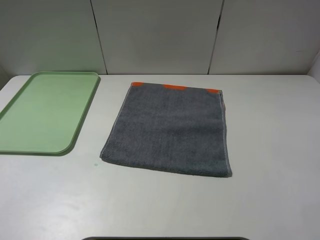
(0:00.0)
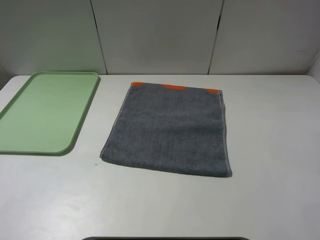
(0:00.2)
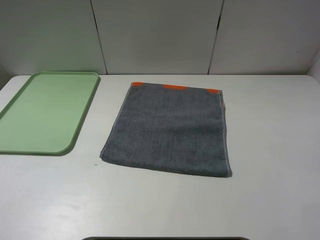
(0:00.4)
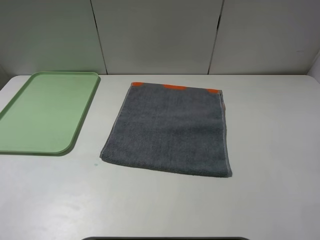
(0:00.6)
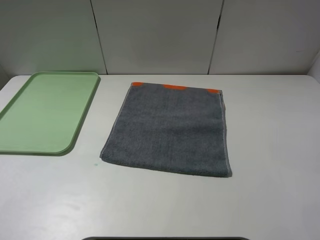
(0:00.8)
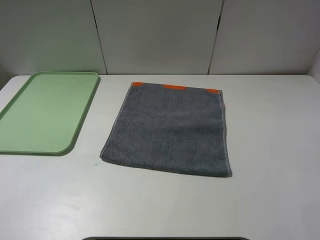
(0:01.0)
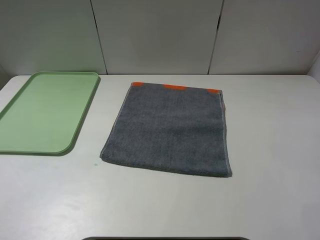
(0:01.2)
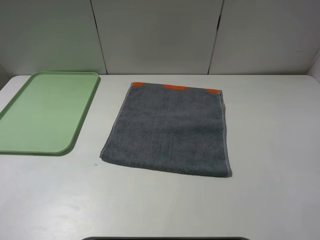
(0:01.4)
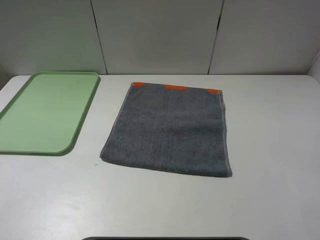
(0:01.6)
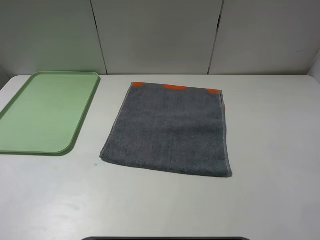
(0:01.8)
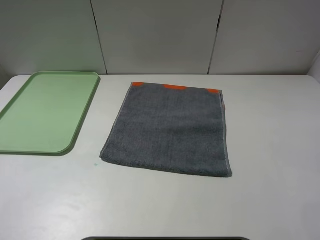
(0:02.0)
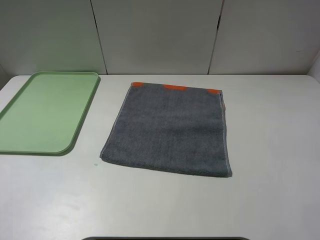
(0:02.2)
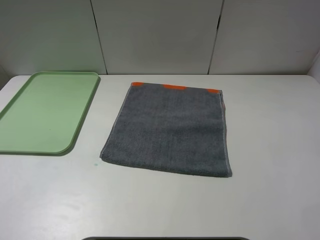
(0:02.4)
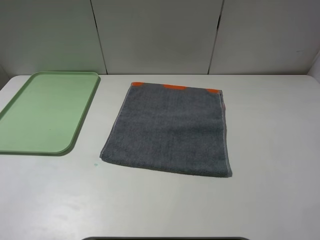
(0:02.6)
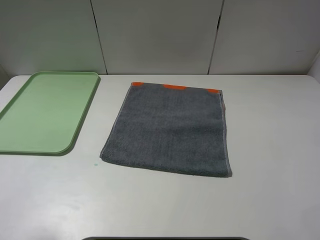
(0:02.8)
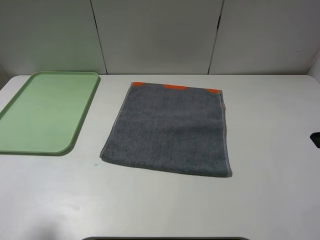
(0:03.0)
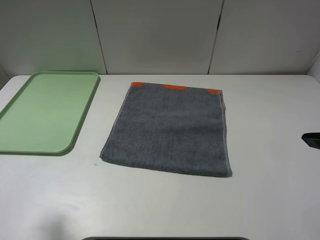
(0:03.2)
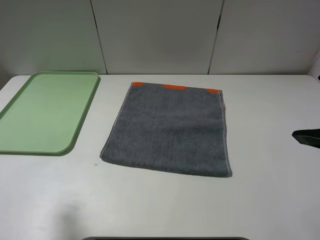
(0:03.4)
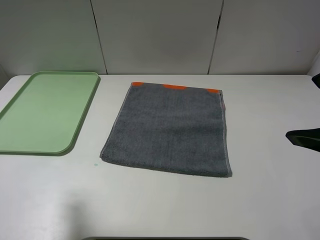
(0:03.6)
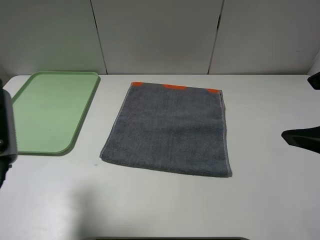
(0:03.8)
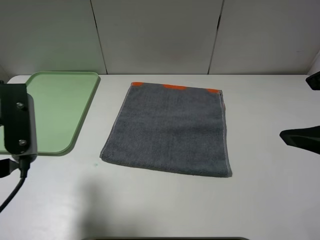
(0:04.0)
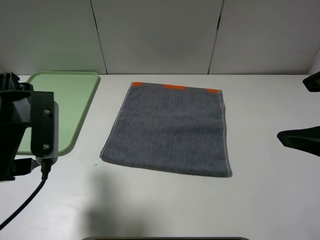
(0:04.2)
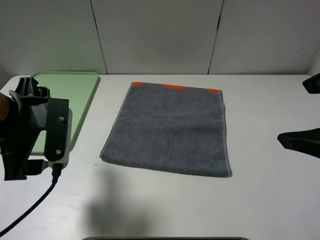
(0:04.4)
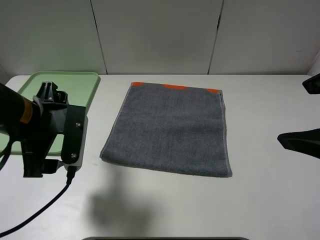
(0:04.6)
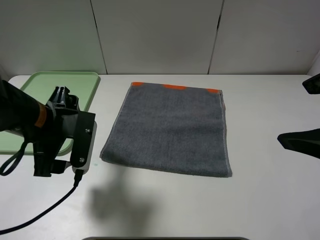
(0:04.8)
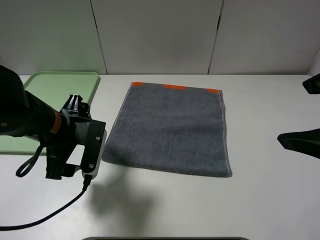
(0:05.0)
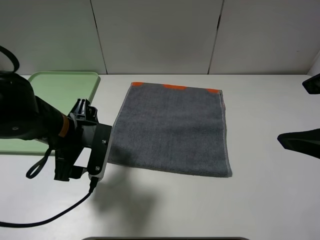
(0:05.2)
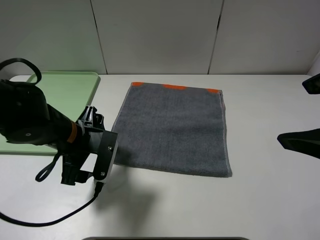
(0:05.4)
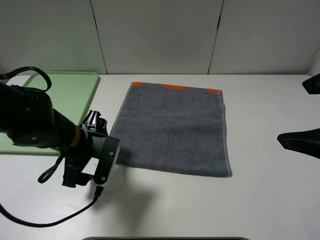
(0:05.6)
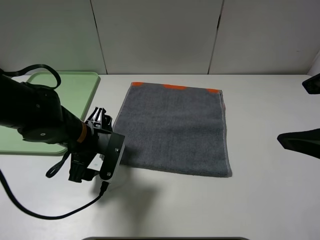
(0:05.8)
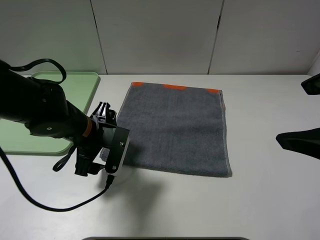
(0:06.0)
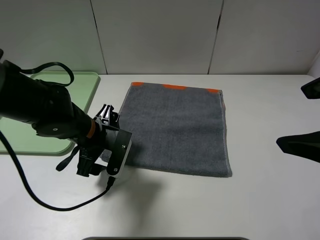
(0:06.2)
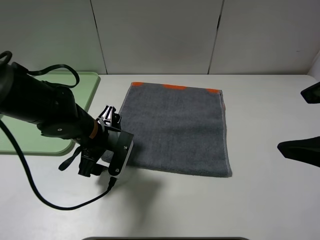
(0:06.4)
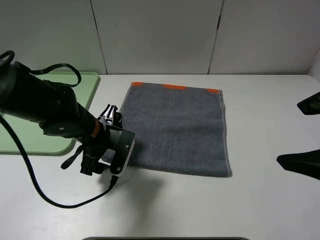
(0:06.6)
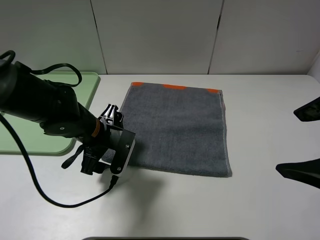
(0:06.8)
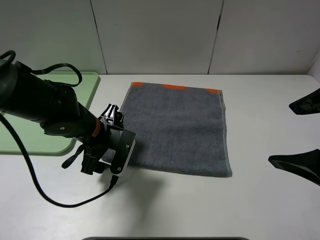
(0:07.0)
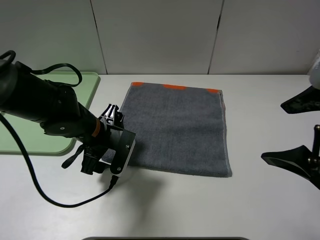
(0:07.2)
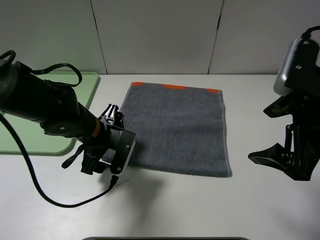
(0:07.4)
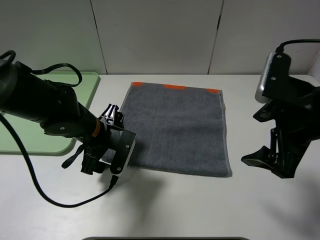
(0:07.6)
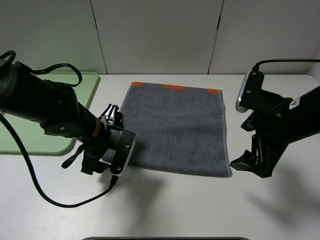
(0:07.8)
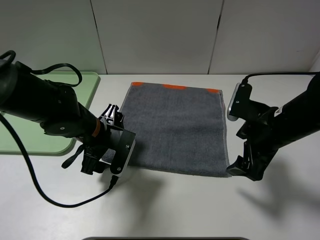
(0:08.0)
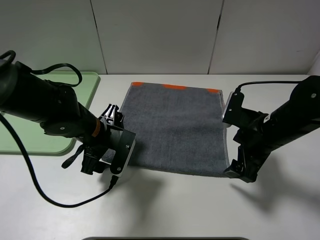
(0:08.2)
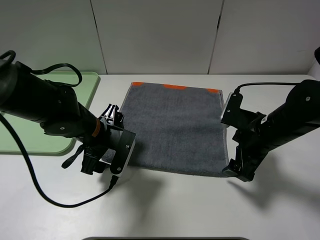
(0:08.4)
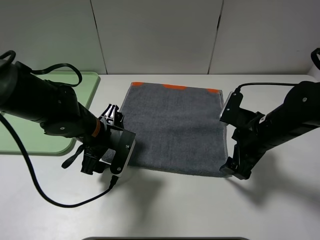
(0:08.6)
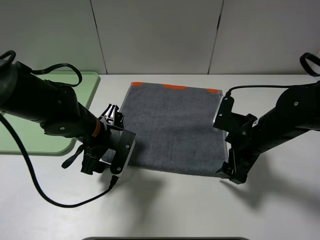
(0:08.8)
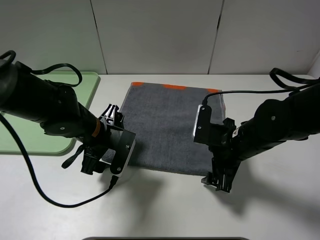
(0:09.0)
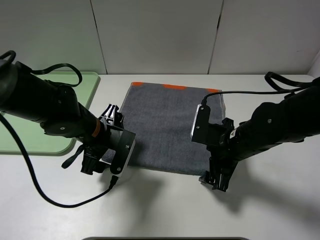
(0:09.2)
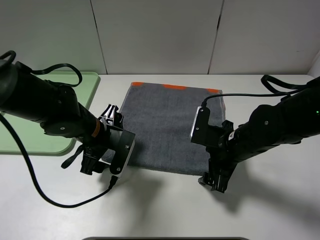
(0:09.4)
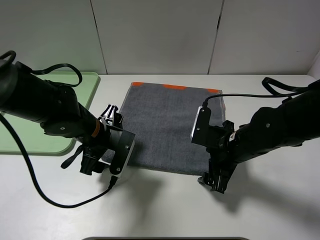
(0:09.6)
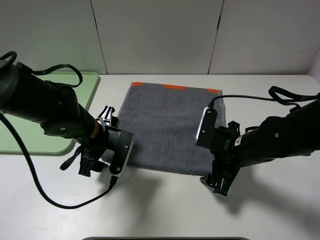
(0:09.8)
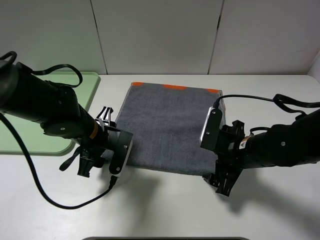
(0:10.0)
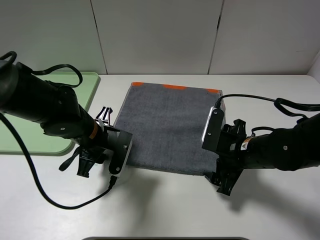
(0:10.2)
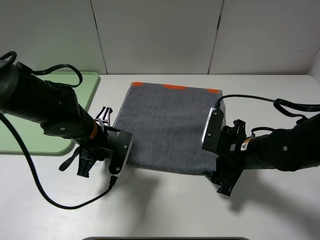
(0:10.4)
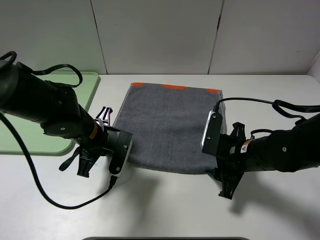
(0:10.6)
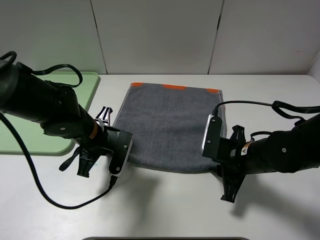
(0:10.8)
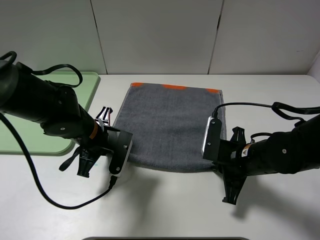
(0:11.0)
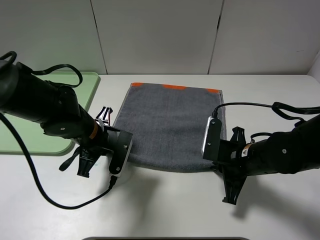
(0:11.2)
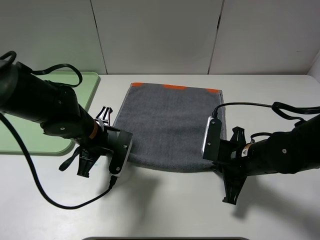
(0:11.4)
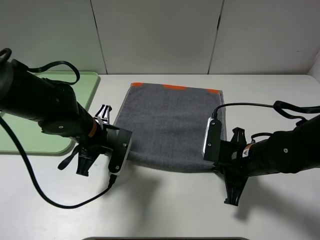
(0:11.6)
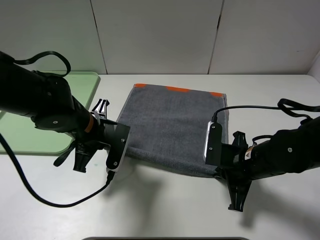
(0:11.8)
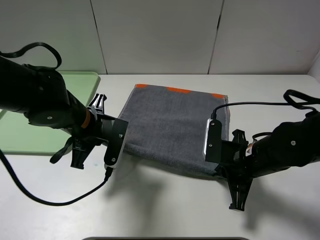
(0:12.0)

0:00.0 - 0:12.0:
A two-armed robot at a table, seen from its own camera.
0:00.0 - 0:01.6: Both grippers stay put.
0:01.6 - 0:03.0: The left gripper moves forward, about 10 cm.
0:03.0 - 0:04.4: The left gripper travels forward, to the right and downward by about 15 cm.
0:04.4 - 0:06.0: The left gripper travels downward, to the right and forward by about 15 cm.
0:06.0 - 0:07.6: The right gripper goes approximately 10 cm downward and forward.
0:07.6 - 0:09.0: The right gripper goes some 15 cm downward and to the left.
0:09.0 - 0:10.4: The left gripper closes up.
0:10.4 - 0:12.0: The right gripper closes up.

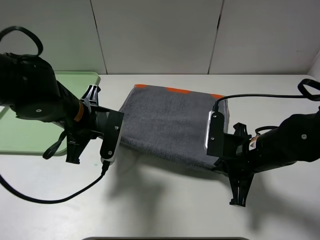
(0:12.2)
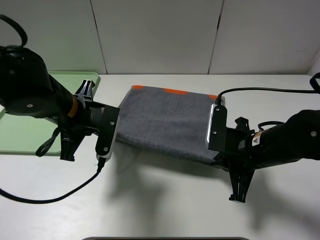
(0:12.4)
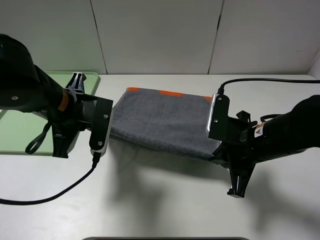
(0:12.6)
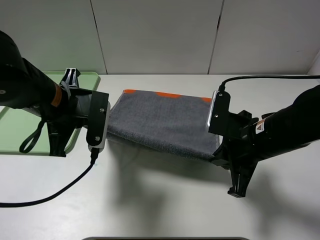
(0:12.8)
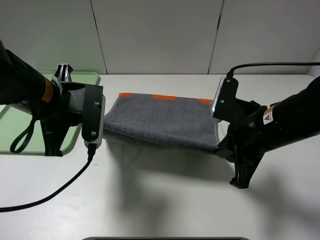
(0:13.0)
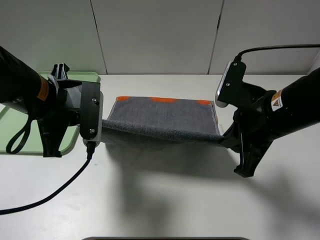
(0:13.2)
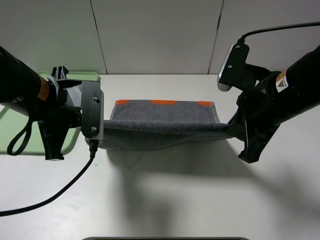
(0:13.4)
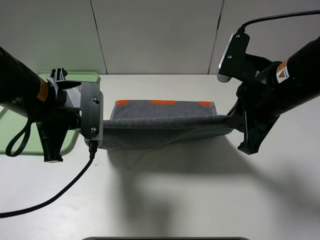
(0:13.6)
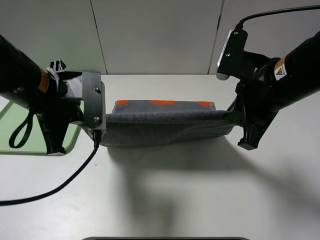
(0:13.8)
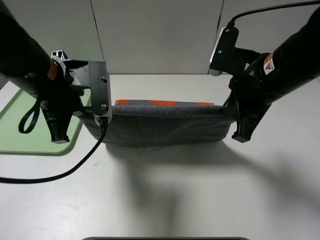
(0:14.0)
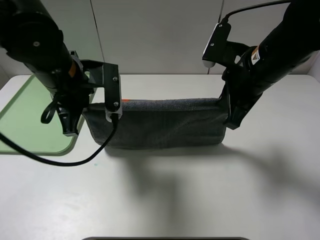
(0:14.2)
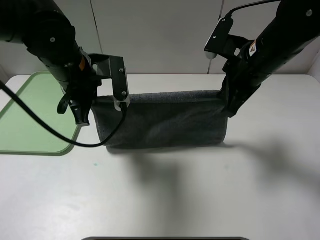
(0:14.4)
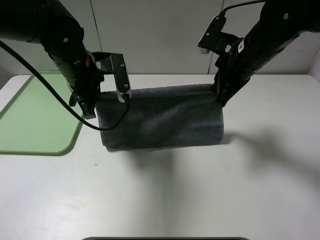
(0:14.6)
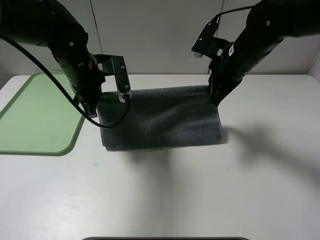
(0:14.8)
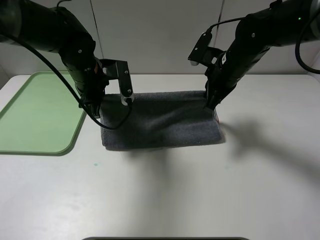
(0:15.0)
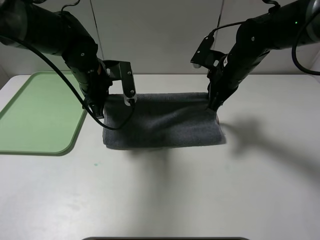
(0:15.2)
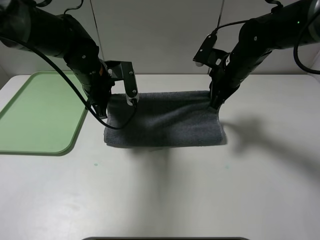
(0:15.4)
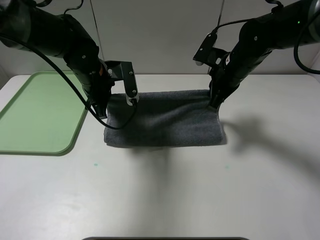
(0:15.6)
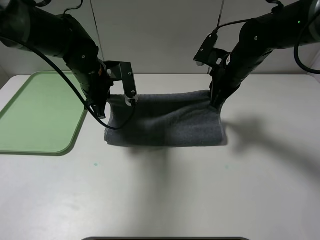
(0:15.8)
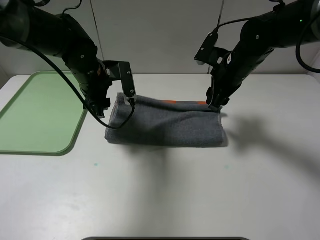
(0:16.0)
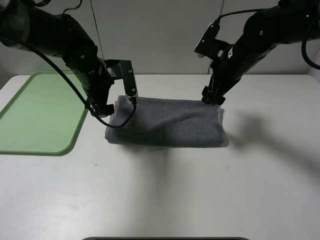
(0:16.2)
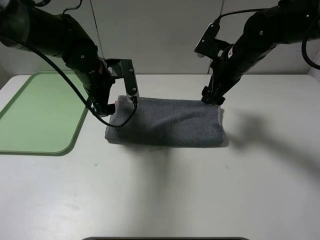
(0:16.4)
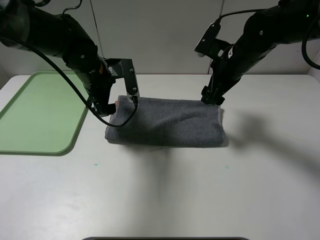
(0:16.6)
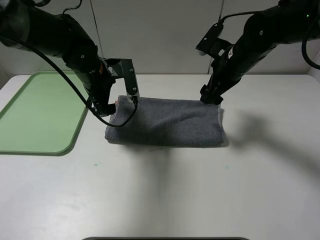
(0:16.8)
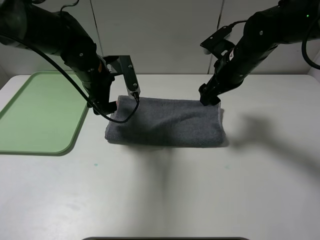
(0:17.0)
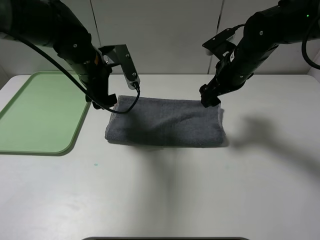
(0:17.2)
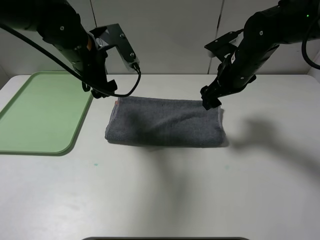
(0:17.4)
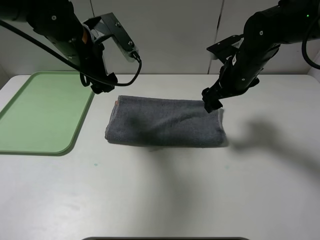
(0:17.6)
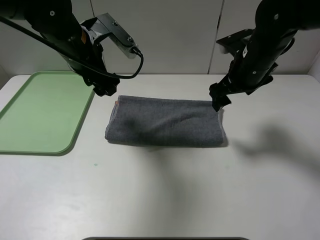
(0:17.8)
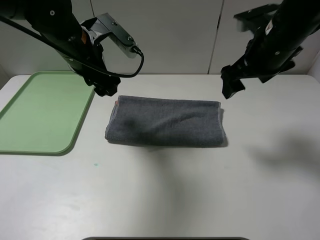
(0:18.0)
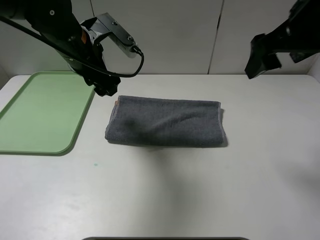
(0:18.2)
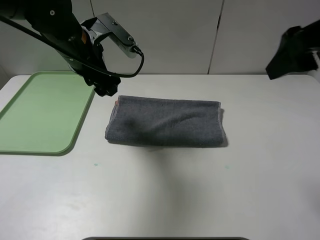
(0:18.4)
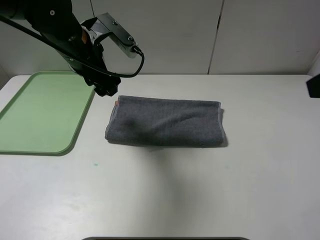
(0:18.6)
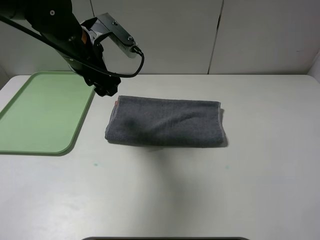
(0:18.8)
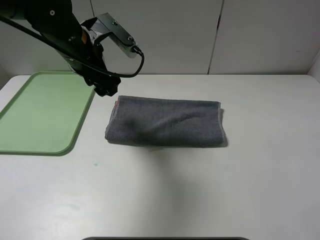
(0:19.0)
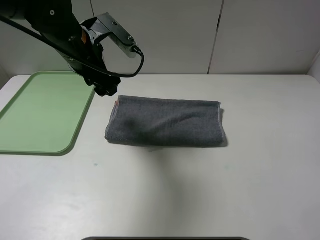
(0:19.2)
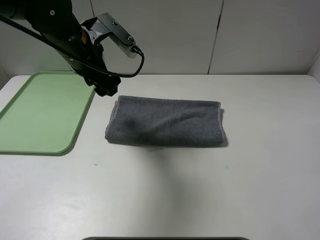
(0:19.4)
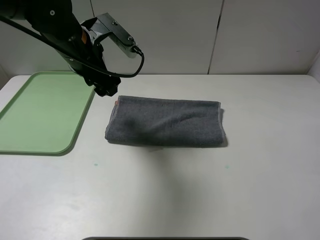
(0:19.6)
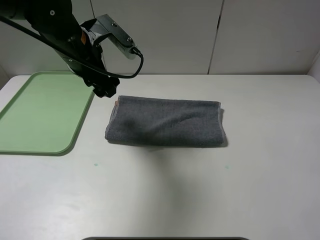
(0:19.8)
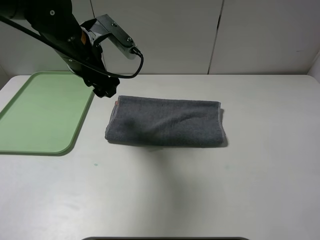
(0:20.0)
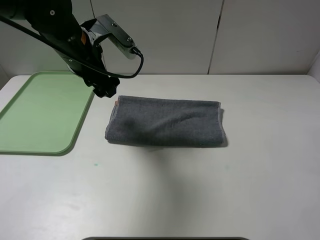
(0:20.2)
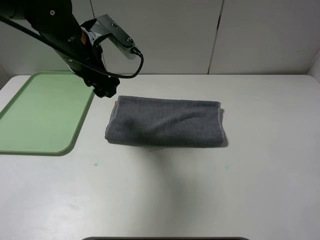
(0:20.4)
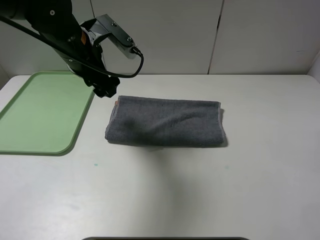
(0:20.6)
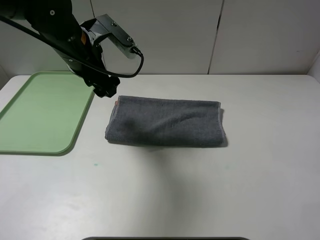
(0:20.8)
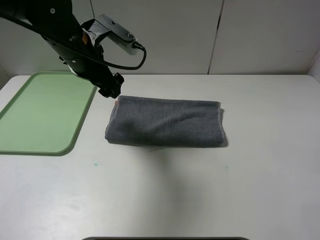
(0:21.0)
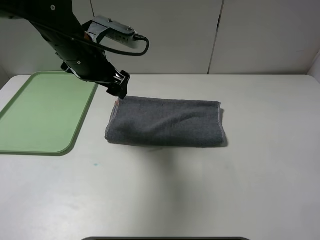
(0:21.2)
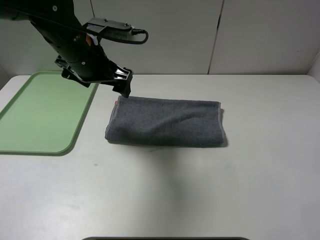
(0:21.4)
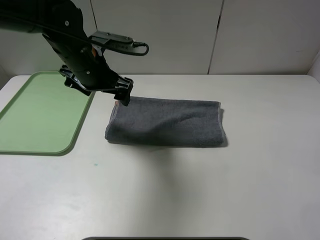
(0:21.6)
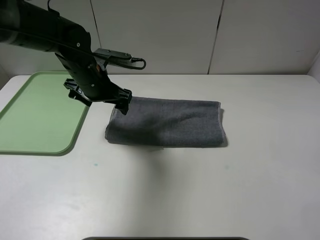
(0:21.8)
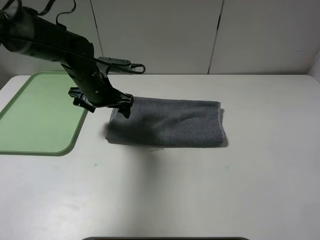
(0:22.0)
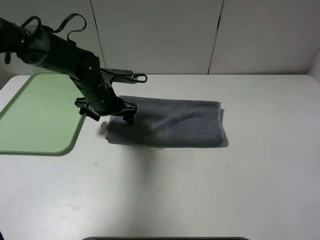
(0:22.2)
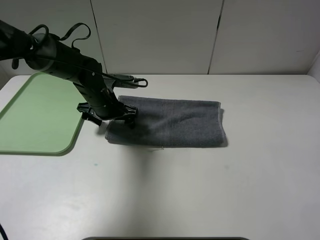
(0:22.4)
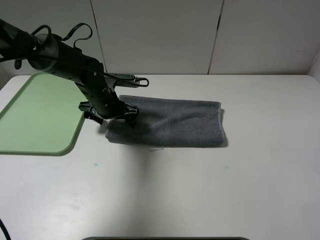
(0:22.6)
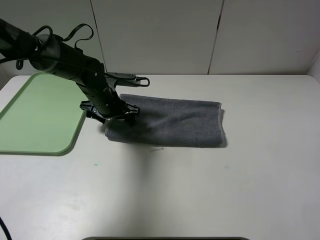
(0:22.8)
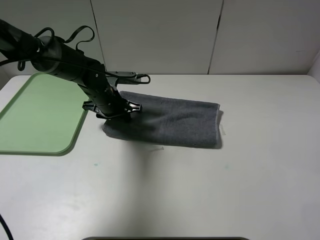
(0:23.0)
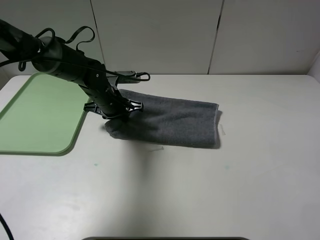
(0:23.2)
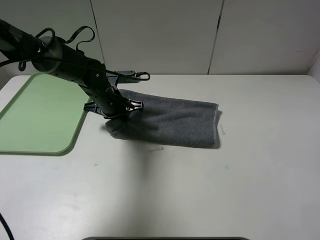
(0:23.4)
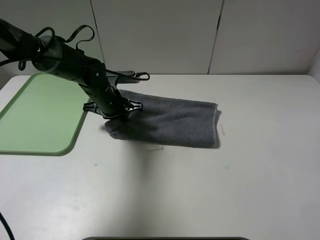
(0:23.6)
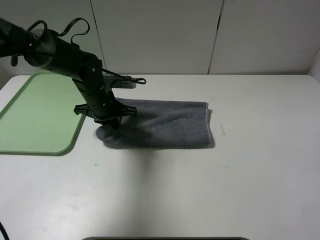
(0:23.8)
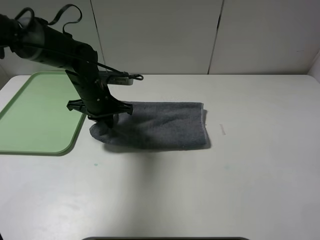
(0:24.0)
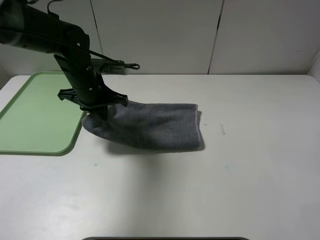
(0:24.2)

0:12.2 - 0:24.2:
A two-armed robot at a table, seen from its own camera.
Step, 0:12.2 - 0:16.2: Fold the grey towel upwards.
0:12.2 - 0:13.8: The right gripper heads upward, covering about 15 cm, while the left gripper is displaced upward by about 5 cm.
0:13.8 - 0:15.2: Both grippers travel together forward and downward, roughly 15 cm.
0:15.2 - 0:16.6: The right gripper opens its fingers; the left gripper opens up.
0:16.6 - 0:18.2: The left gripper goes roughly 10 cm upward. The right gripper moves upward and backward, approximately 20 cm.
0:18.2 - 0:19.8: The right gripper shifts roughly 25 cm backward.
0:21.2 - 0:22.6: The left gripper moves downward, about 15 cm.
0:22.6 - 0:24.2: The left gripper is displaced upward by some 5 cm, and closes up.
